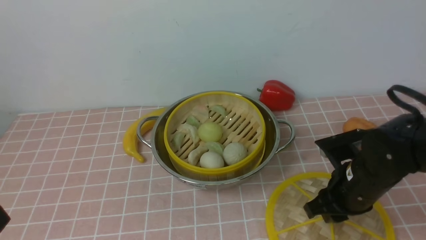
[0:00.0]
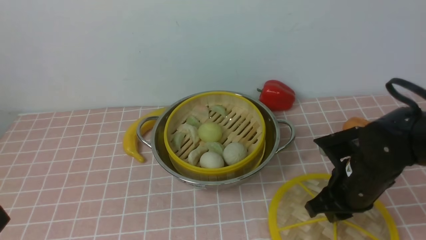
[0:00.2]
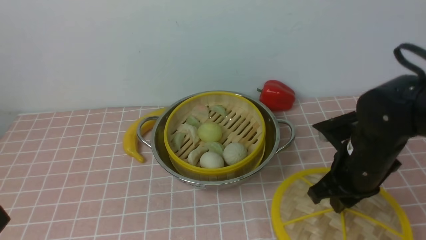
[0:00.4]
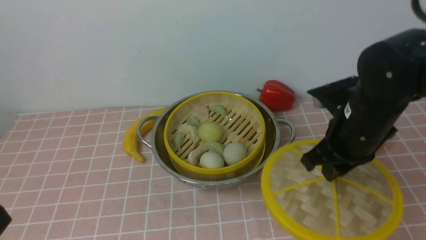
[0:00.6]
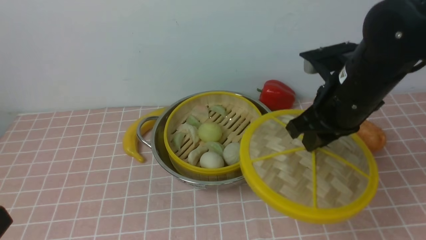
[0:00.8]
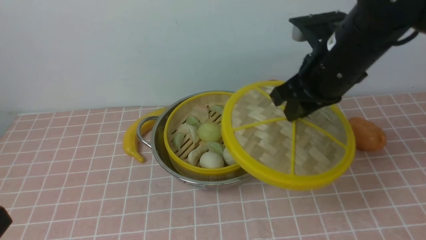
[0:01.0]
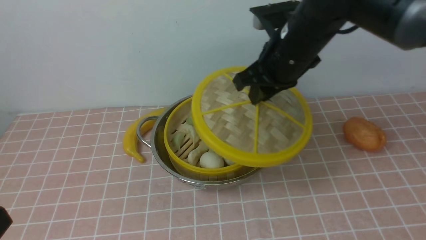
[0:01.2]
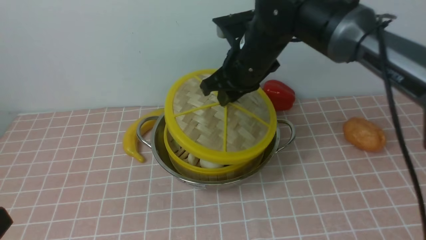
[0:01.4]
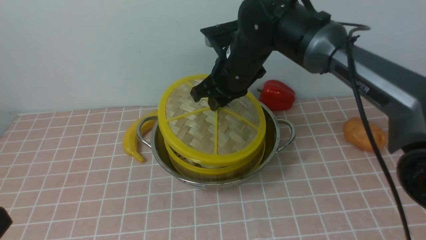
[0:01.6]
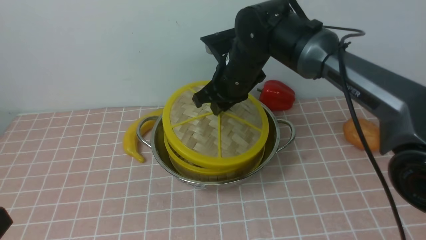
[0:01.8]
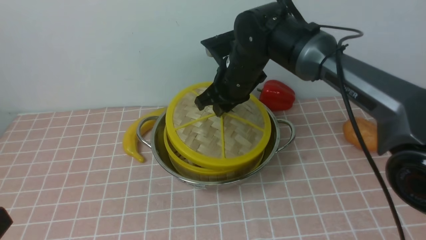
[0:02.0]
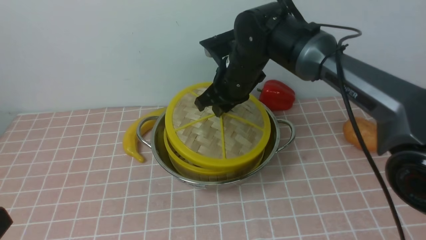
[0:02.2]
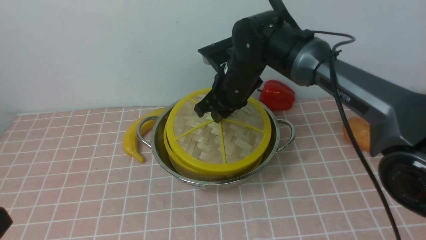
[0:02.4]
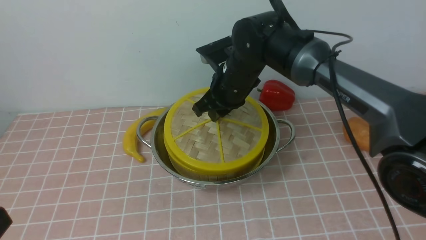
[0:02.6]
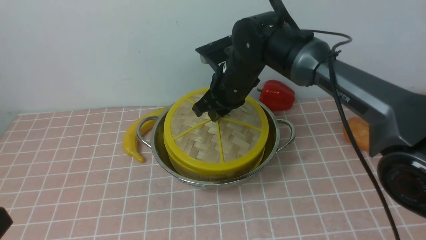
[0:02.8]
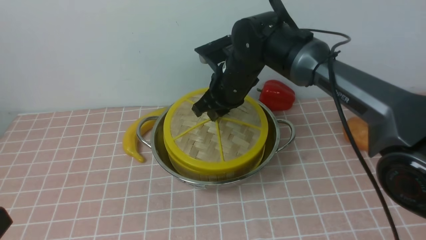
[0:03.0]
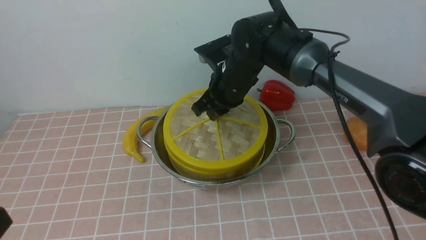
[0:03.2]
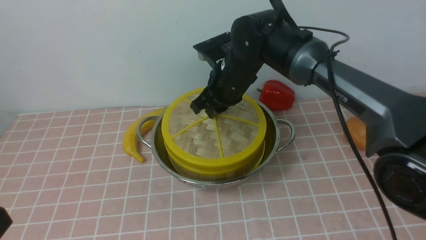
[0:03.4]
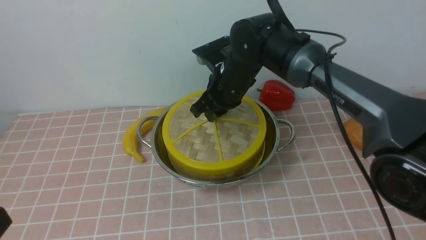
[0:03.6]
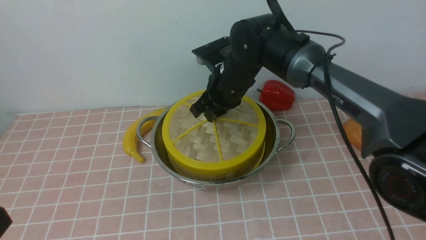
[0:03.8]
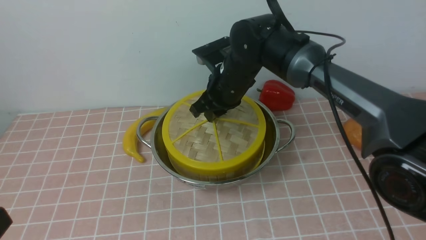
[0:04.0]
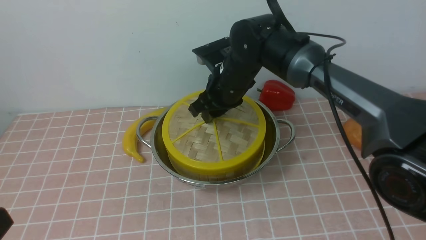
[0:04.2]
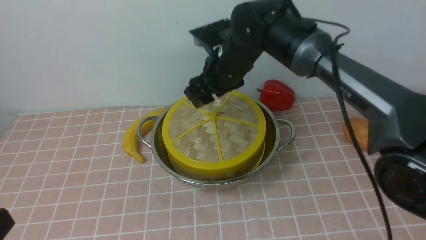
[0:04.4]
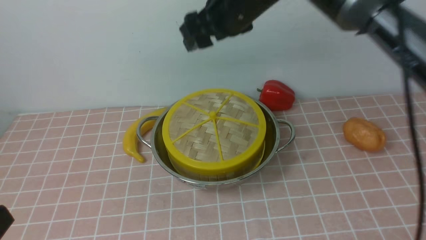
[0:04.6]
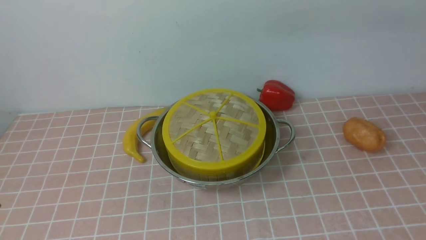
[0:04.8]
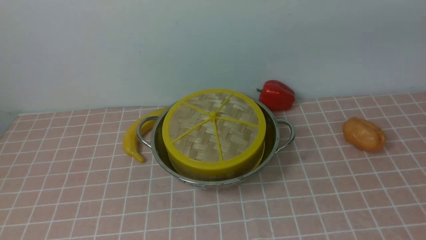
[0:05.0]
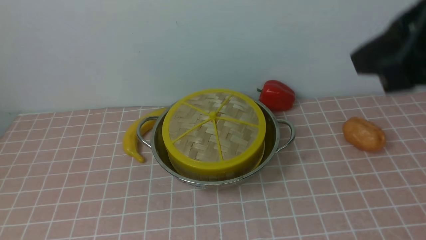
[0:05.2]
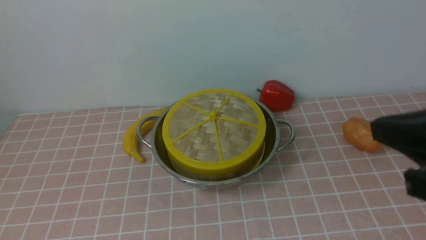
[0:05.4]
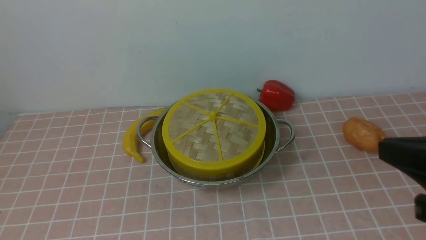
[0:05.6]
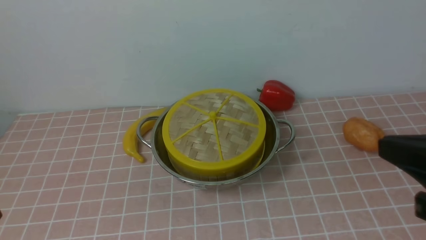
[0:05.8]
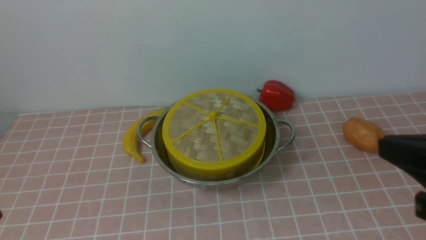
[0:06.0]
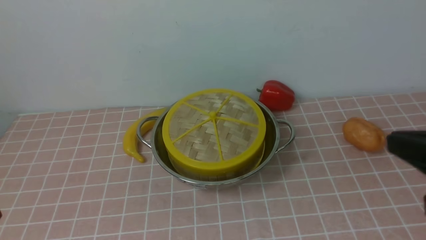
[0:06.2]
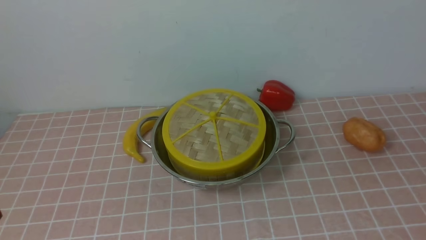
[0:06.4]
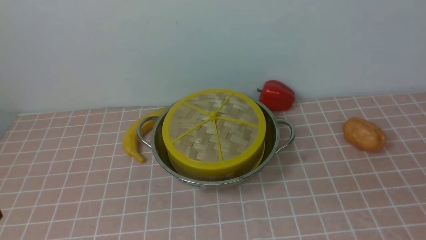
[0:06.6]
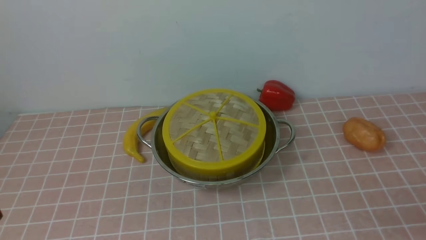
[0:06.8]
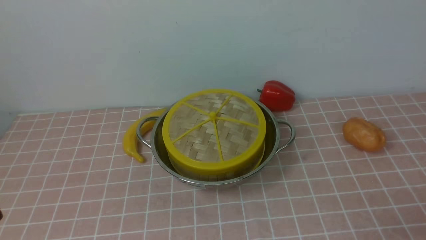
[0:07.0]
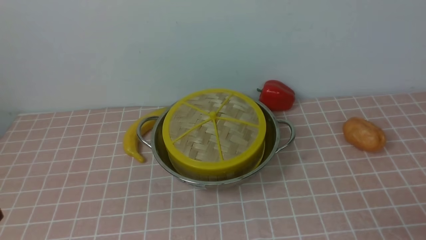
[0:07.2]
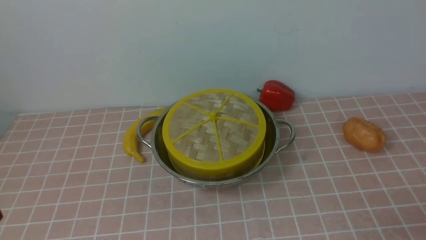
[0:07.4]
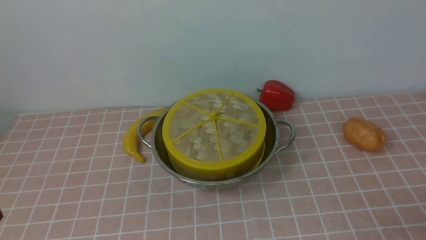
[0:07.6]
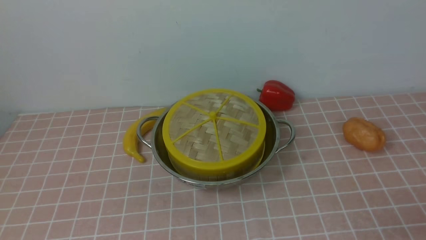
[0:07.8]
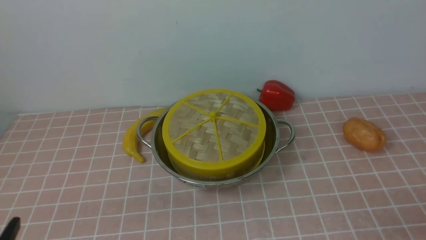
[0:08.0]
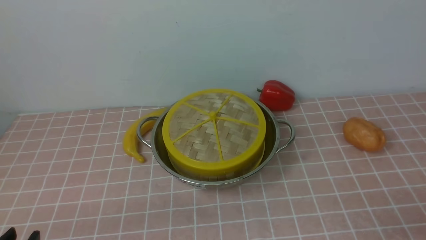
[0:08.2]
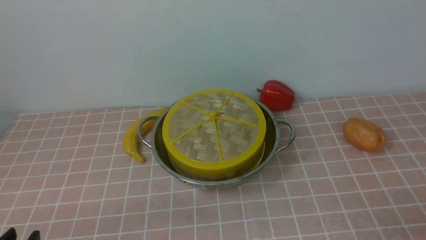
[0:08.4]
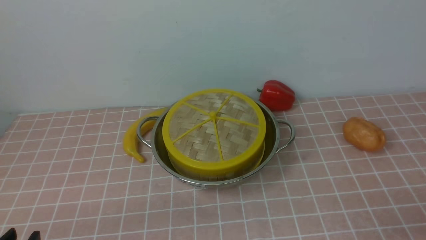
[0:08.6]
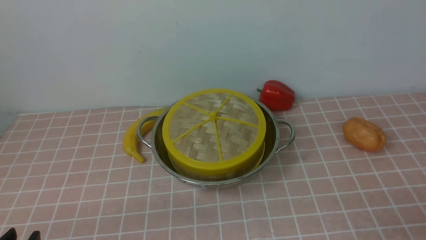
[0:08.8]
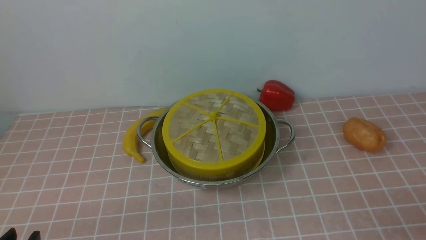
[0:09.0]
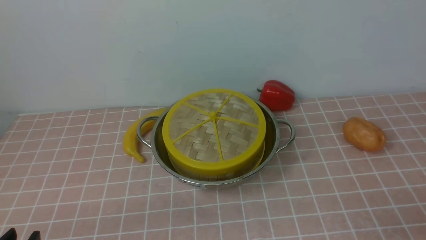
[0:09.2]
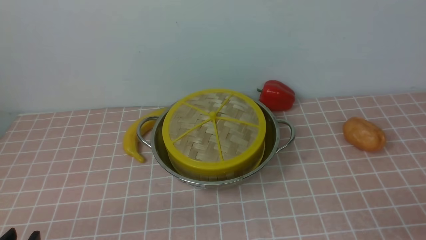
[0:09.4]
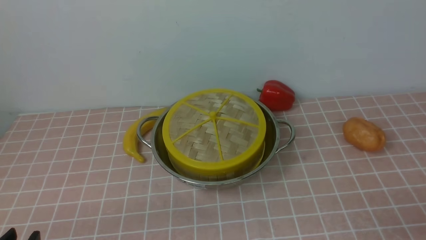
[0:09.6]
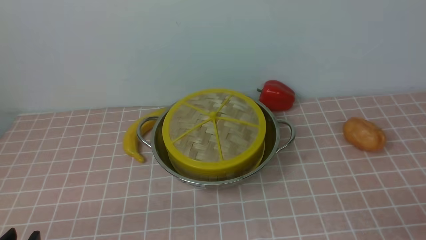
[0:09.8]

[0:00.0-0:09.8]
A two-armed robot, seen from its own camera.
Task of the whole recording: place the steamer in the pot on the pink tablecloth, and put the lid on the steamer.
Step, 0:00.6 to 0:04.2: use the right arm to place the steamer lid on the steamer.
0:00.0 to 0:01.4: The right gripper heads forward, to the left and upward, covering about 25 cm.
0:01.4 to 0:02.8: The right gripper is displaced downward by approximately 5 cm.
0:02.8 to 0:04.2: The right gripper opens up.
0:04.2 to 0:05.6: The right gripper shifts approximately 35 cm backward and to the right, and closes its fingers. The left gripper opens up.
0:05.6 to 0:07.0: The right gripper heads downward, to the right and backward, covering some 20 cm.
0:08.4 to 0:09.8: Neither gripper changes place.
